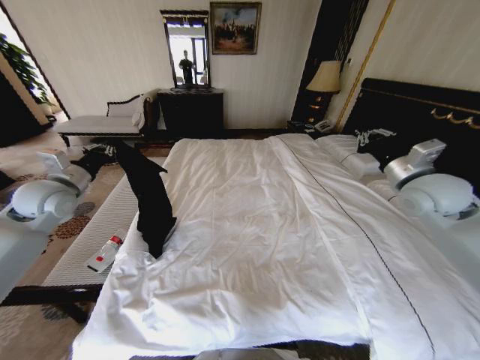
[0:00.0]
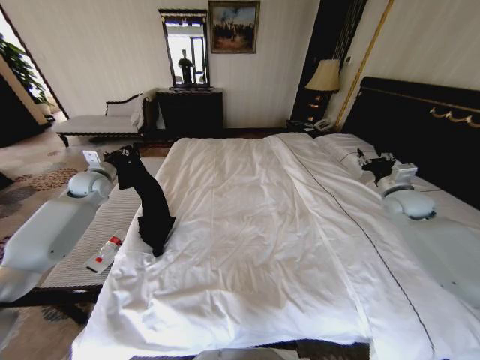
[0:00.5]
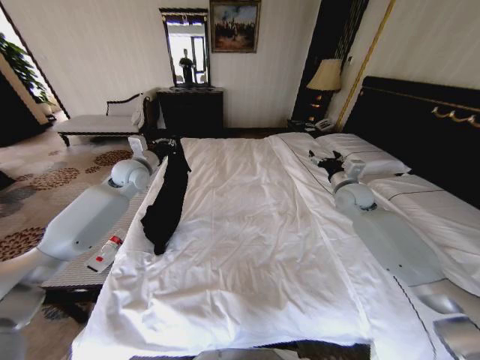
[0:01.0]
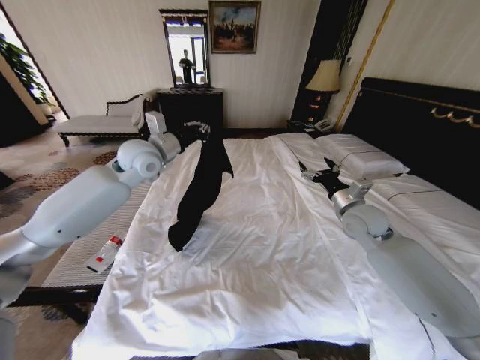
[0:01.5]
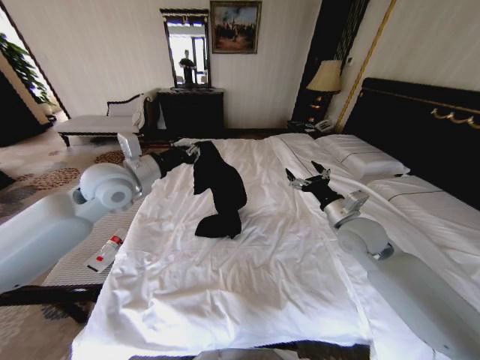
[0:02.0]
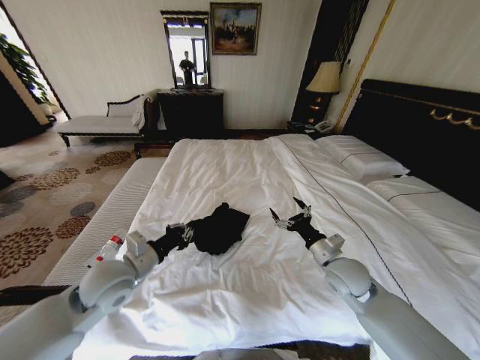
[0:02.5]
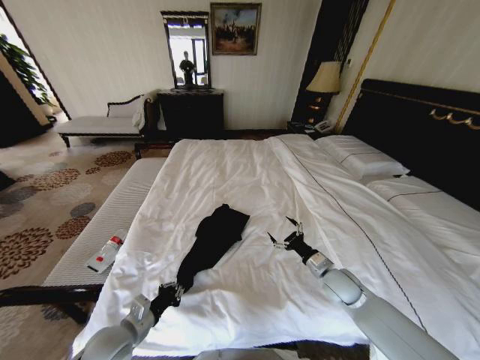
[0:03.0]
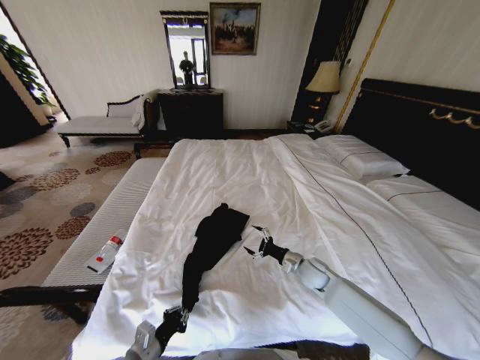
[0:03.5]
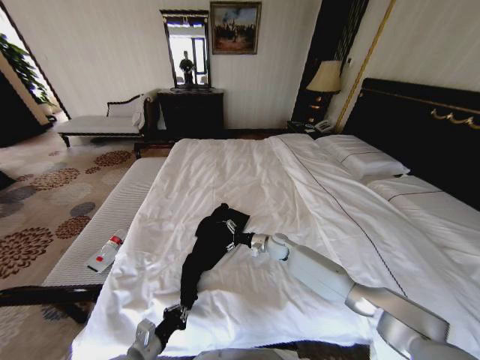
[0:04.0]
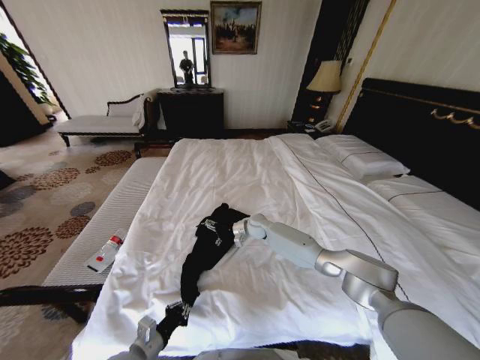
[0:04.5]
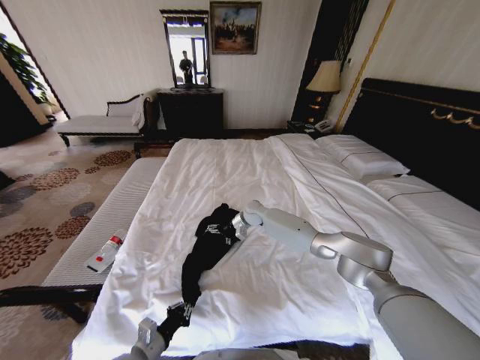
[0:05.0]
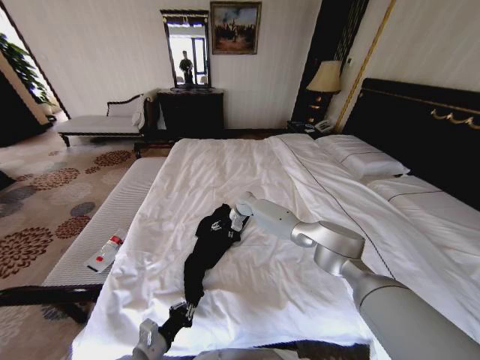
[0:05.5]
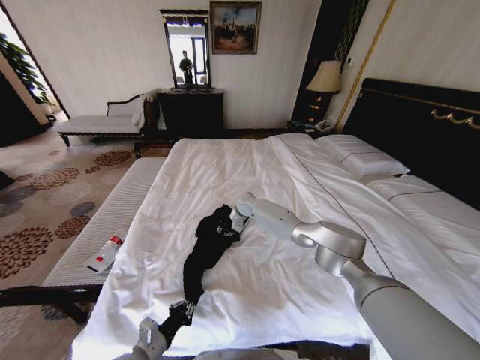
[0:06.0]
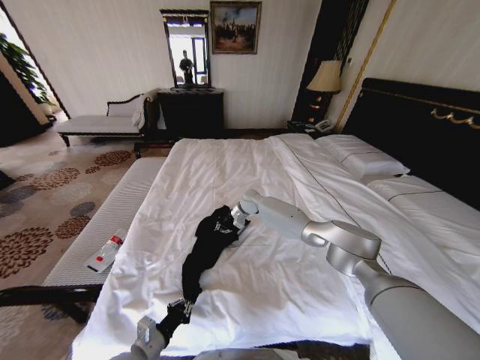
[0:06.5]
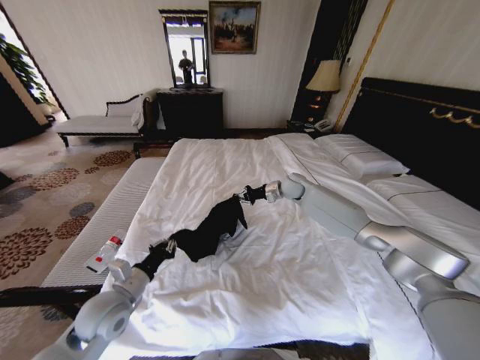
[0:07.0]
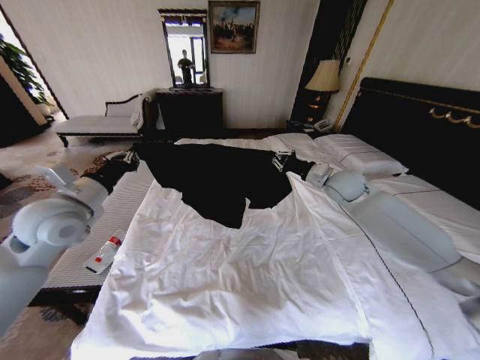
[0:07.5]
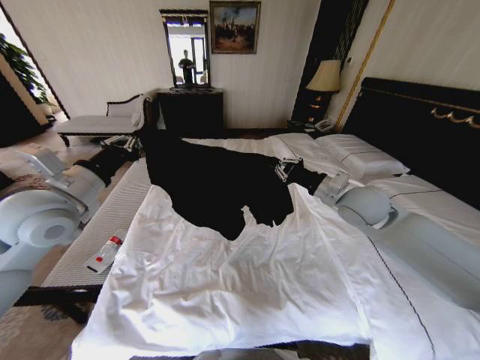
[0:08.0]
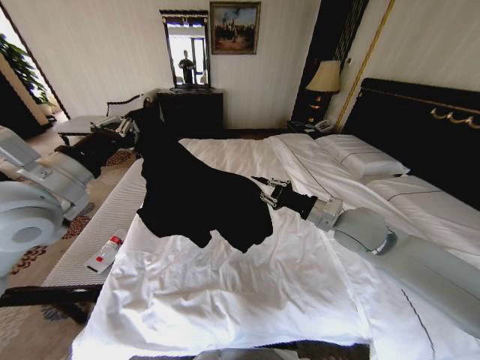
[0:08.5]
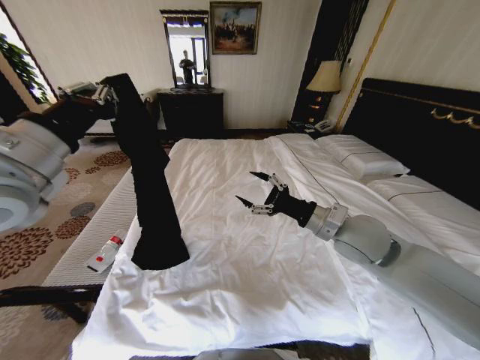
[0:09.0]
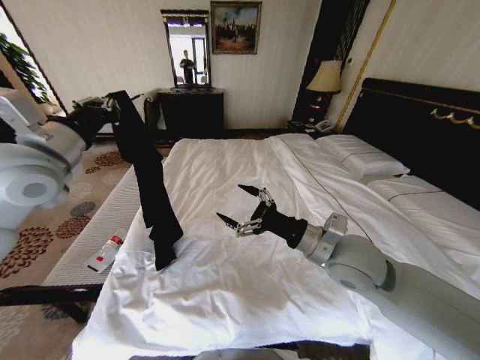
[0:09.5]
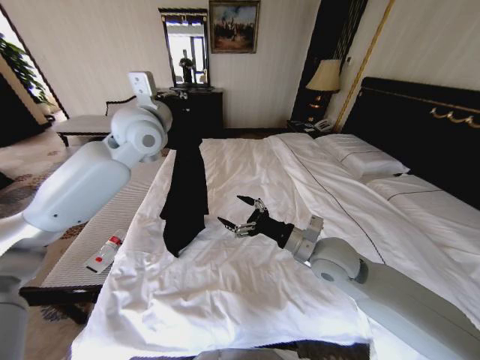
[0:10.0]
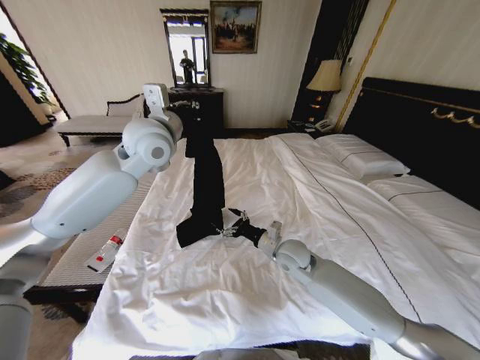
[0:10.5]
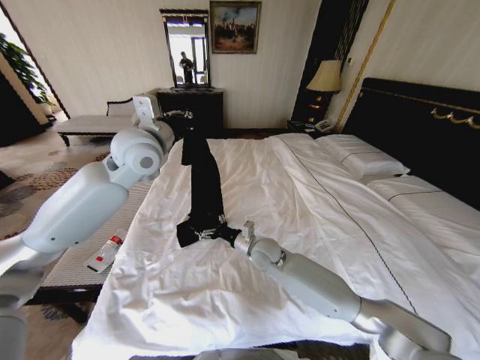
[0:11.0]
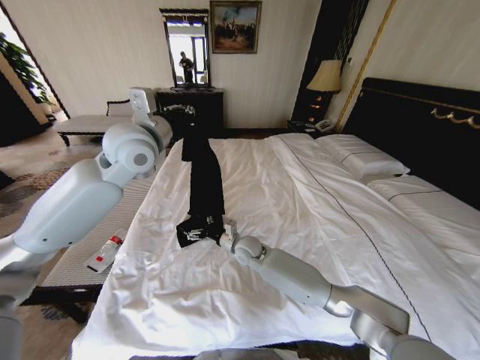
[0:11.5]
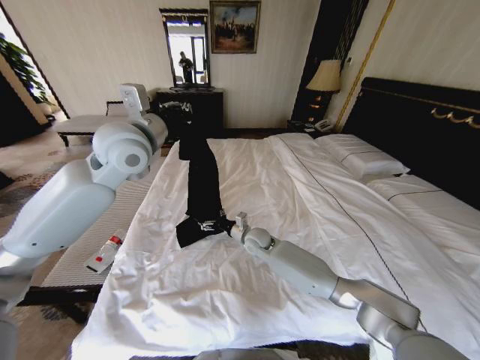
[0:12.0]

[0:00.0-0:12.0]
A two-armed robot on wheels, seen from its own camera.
Task of the whole recording: Fold the clothes on the bed.
0:00.0 to 0:02.0: The right gripper moves downward and to the left, about 15 cm, and opens up. The left gripper goes some 15 cm to the right.
0:02.0 to 0:04.0: The left gripper shifts some 40 cm downward and backward, while the right gripper goes roughly 30 cm downward, to the left and forward.
0:04.0 to 0:06.0: The right gripper travels forward, to the left and upward by roughly 20 cm, and closes.
0:06.0 to 0:08.0: The left gripper travels upward and forward by approximately 40 cm. The right gripper heads backward, to the right and upward, covering roughly 40 cm.
0:08.0 to 0:10.0: The left gripper goes approximately 20 cm forward, to the right and upward; the right gripper travels backward, to the left and downward by about 15 cm, and opens up.
0:10.0 to 0:12.0: The right gripper is displaced downward, forward and to the left by roughly 25 cm.

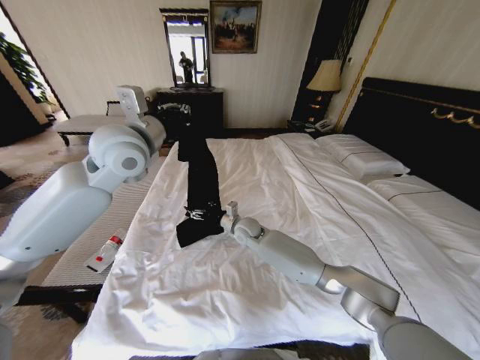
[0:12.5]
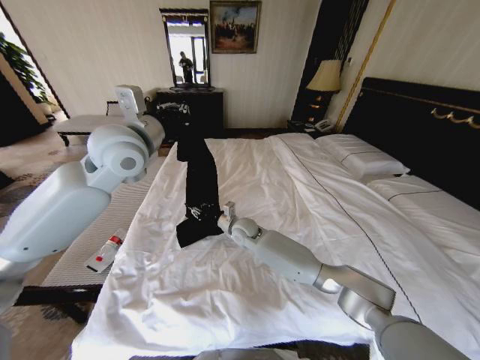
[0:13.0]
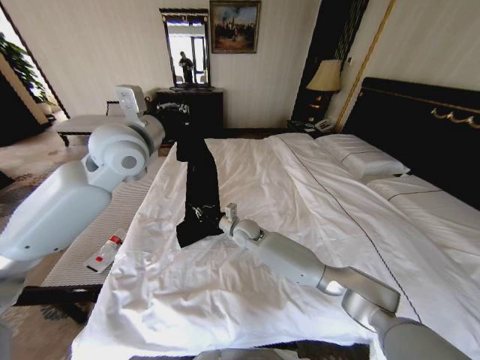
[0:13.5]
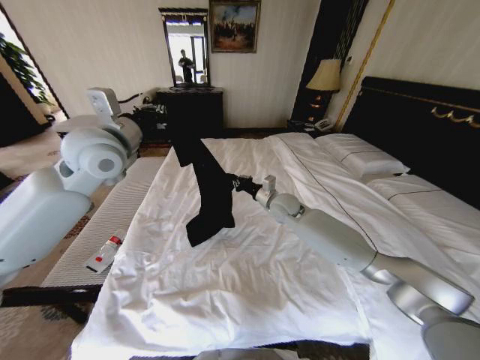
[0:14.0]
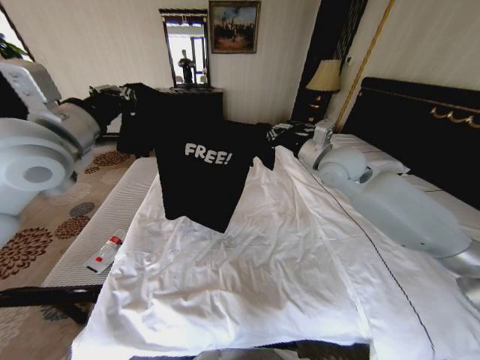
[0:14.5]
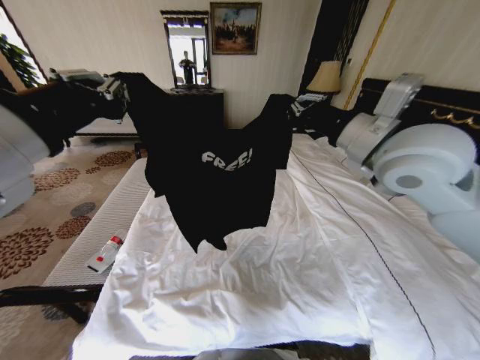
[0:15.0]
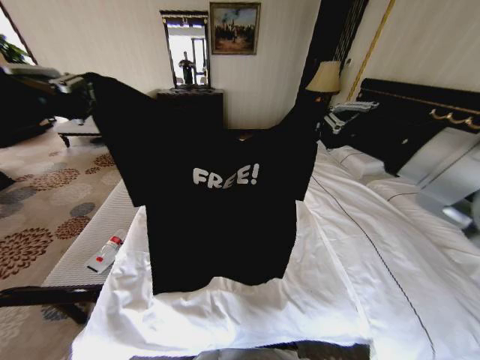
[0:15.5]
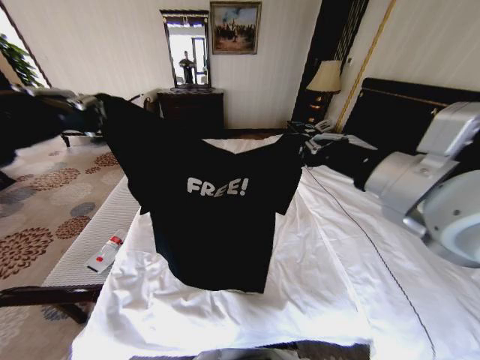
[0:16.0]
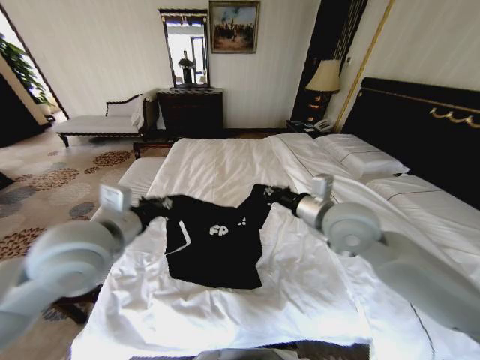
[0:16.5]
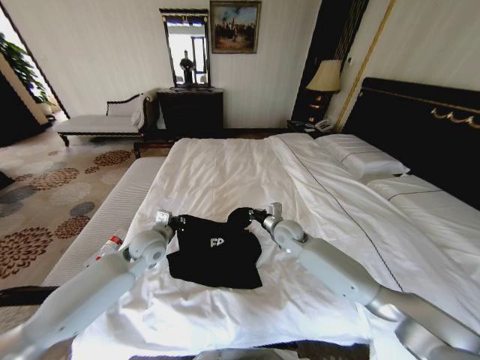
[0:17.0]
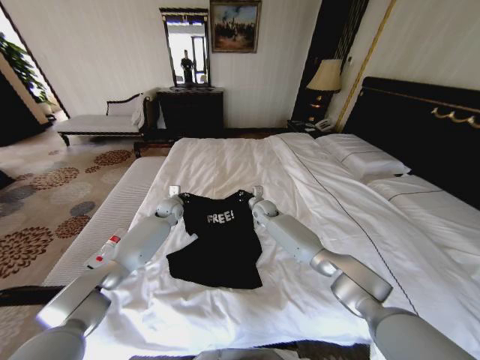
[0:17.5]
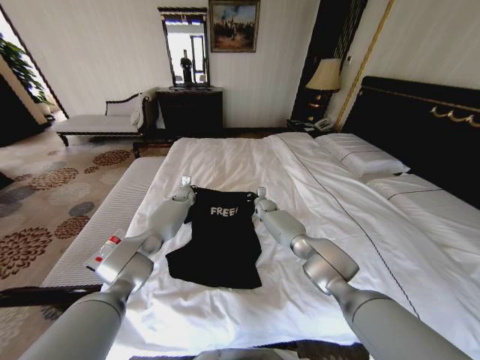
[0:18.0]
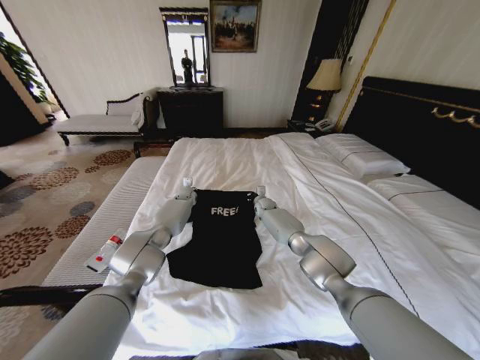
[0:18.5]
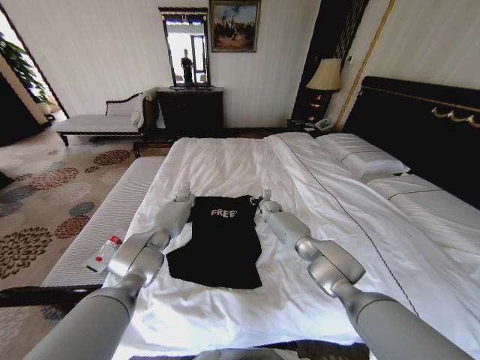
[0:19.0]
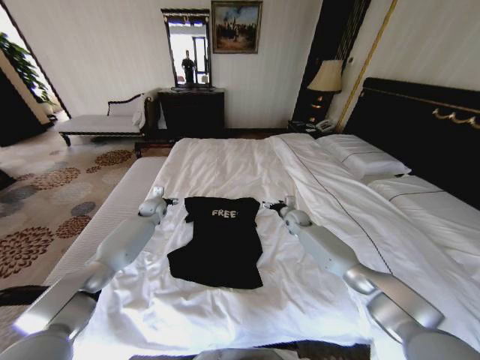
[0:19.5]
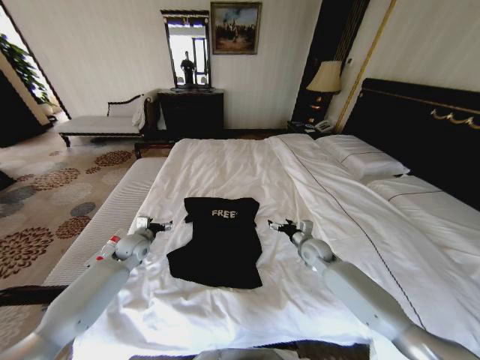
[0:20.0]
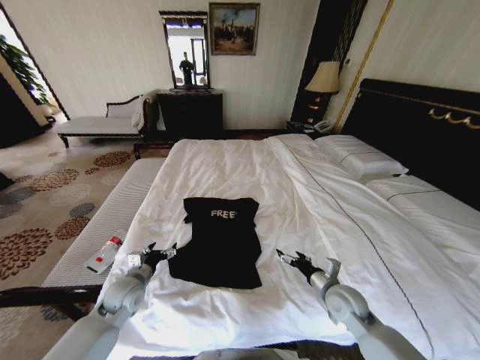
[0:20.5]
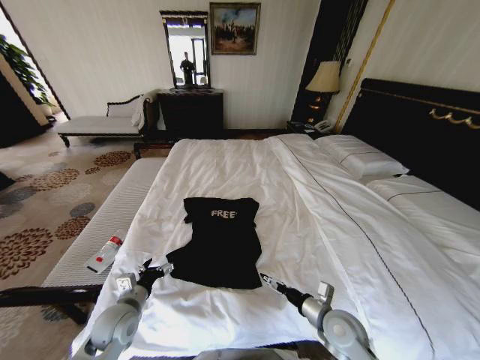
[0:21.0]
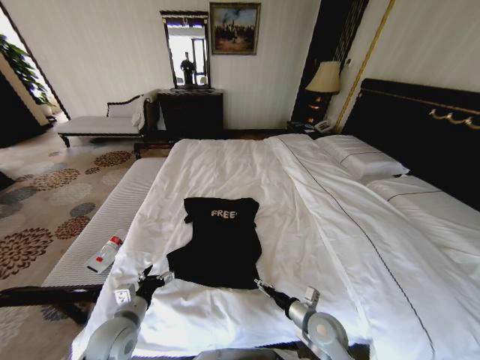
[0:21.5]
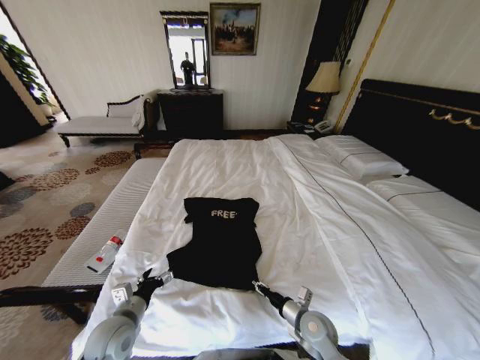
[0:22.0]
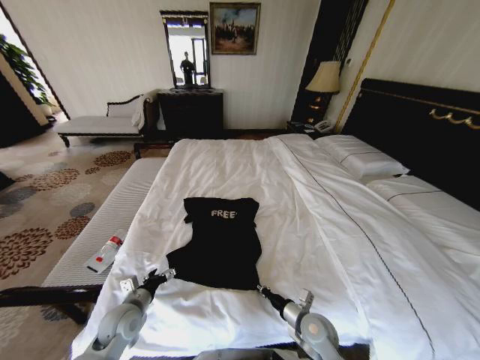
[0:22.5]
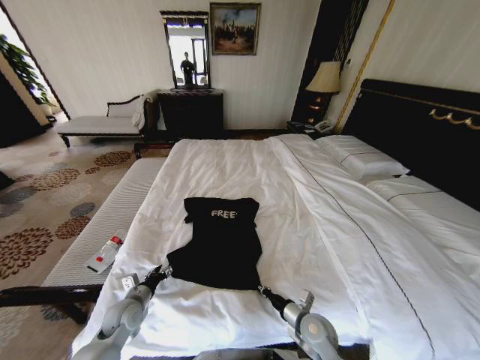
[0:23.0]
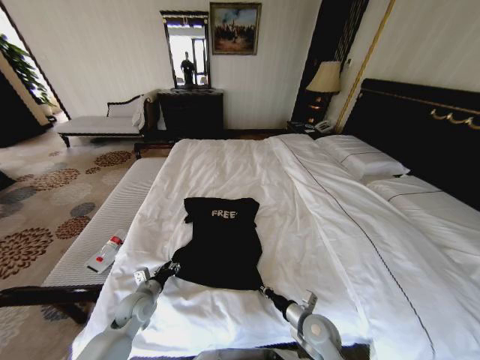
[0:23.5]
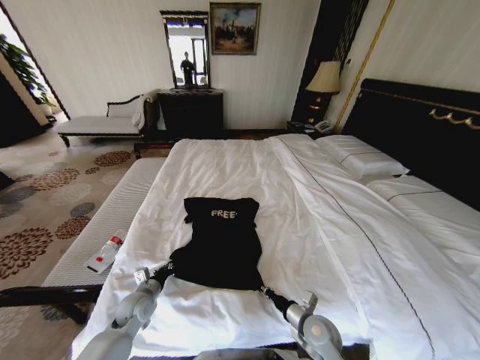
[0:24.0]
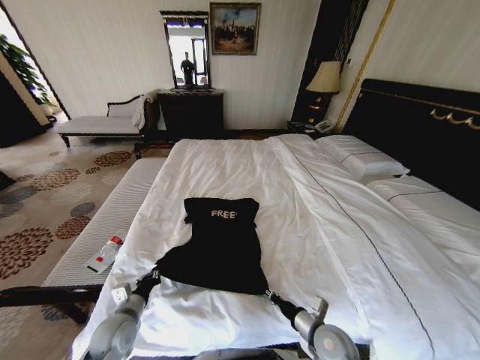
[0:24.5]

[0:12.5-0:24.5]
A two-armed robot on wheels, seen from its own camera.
Task of the whole recording: Fold the clothes on the bed.
0:12.5 to 0:14.5: The left gripper moves to the left and backward, roughly 10 cm. Meanwhile the right gripper goes roughly 35 cm upward and to the right, and closes its fingers.
0:14.5 to 0:16.5: The left gripper goes about 15 cm downward, backward and to the right, while the right gripper shifts approximately 15 cm backward.
0:16.5 to 0:18.5: The grippers both shift forward and downward by about 50 cm.
0:18.5 to 0:20.5: The grippers both shift backward by about 40 cm. The left gripper opens. The right gripper opens its fingers.
0:20.5 to 0:22.5: The right gripper shifts some 10 cm downward, to the left and backward, and closes. The left gripper travels backward by roughly 5 cm.
0:22.5 to 0:24.5: The left gripper closes up, while the right gripper moves about 5 cm.

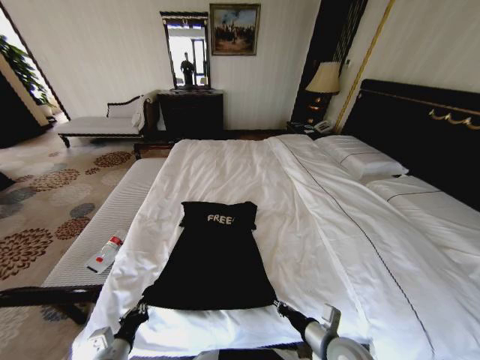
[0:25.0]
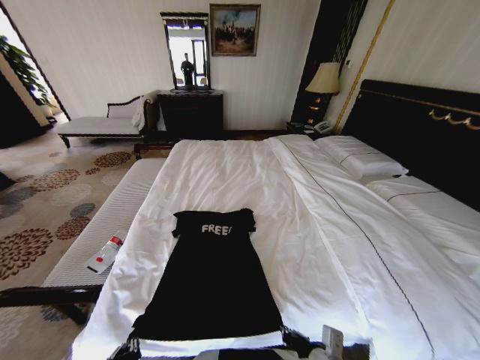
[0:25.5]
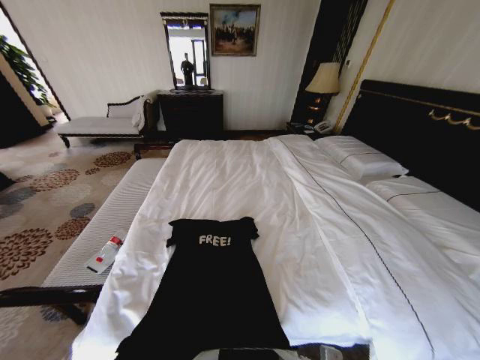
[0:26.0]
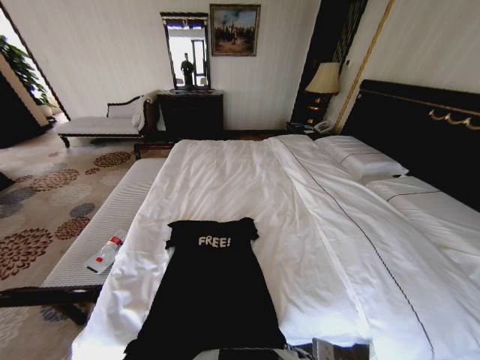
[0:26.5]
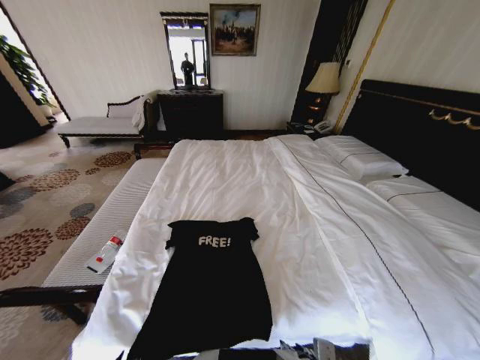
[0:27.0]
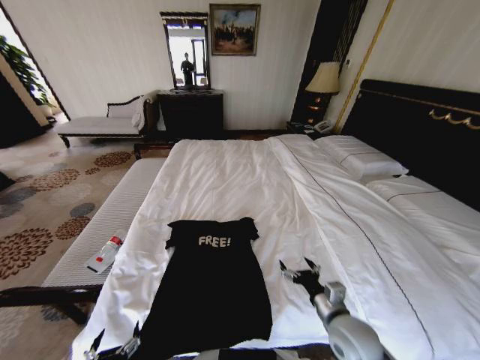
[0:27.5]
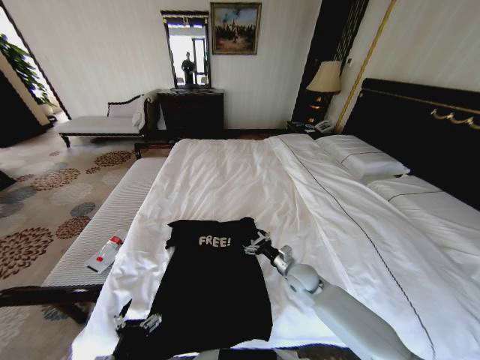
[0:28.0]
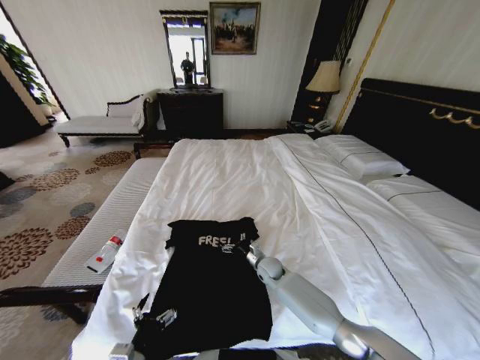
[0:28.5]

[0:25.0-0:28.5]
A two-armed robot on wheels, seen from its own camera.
Task of the whole recording: Fold the clothes on the bed.
0:25.0 to 0:27.0: The left gripper travels backward by approximately 10 cm, and opens its fingers; the right gripper heads backward and to the left, covering about 10 cm, and opens up.
0:27.0 to 0:28.5: The right gripper heads forward, covering roughly 30 cm, and opens up. The left gripper moves forward, roughly 10 cm, and opens its fingers.
